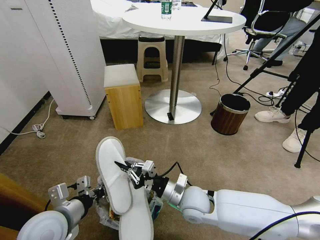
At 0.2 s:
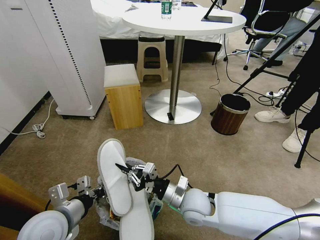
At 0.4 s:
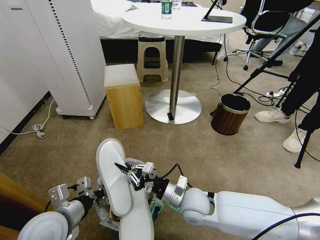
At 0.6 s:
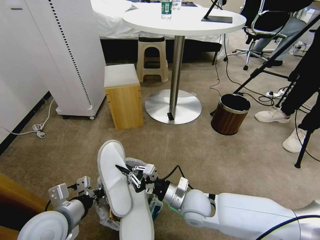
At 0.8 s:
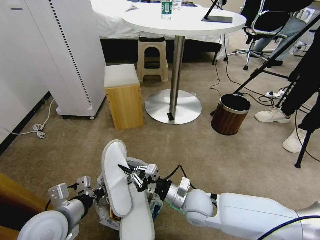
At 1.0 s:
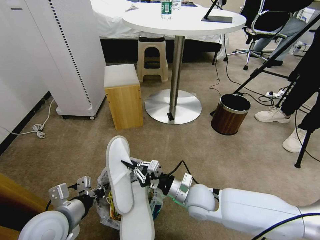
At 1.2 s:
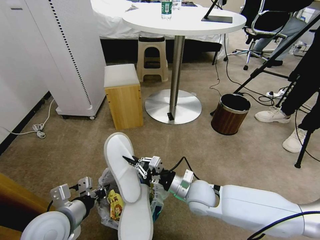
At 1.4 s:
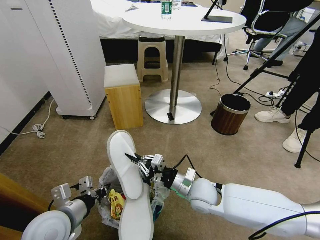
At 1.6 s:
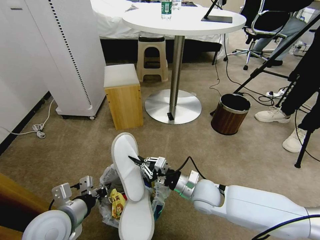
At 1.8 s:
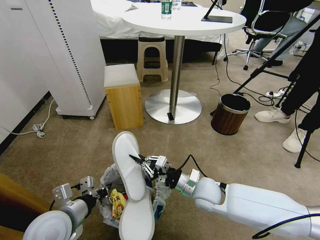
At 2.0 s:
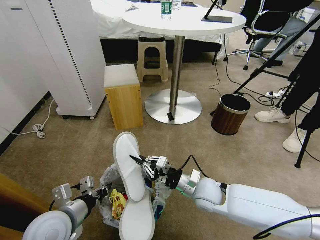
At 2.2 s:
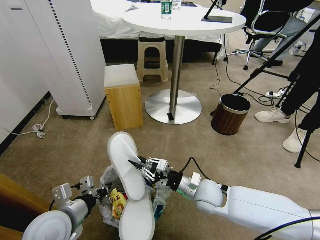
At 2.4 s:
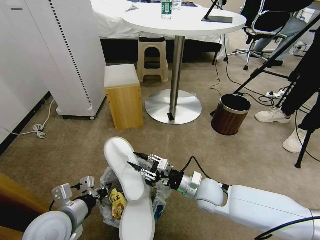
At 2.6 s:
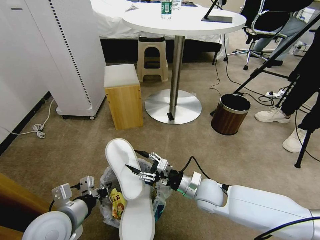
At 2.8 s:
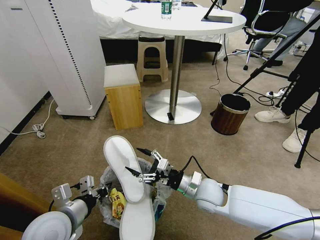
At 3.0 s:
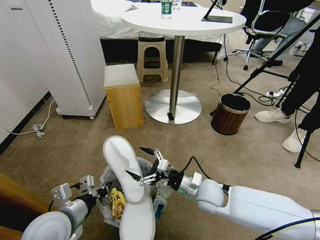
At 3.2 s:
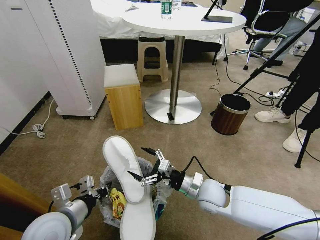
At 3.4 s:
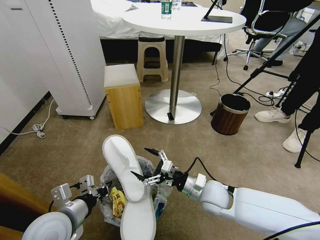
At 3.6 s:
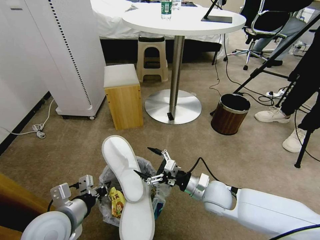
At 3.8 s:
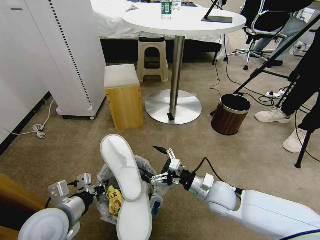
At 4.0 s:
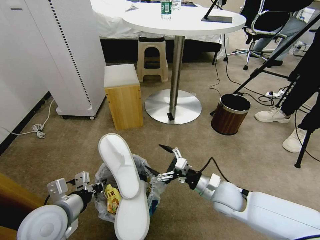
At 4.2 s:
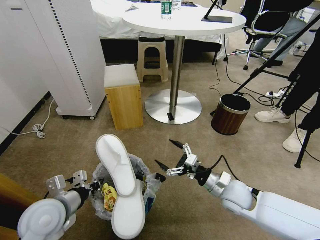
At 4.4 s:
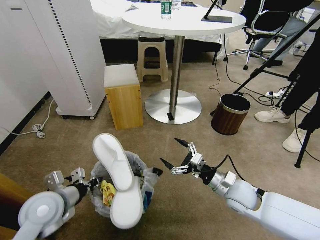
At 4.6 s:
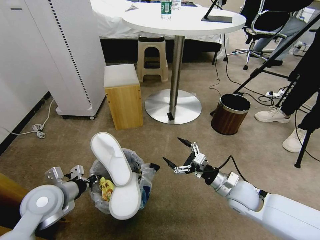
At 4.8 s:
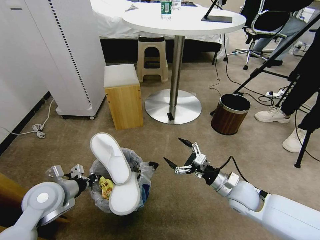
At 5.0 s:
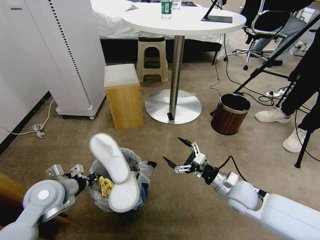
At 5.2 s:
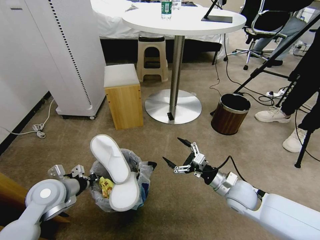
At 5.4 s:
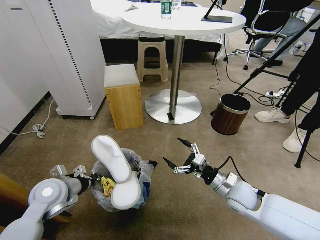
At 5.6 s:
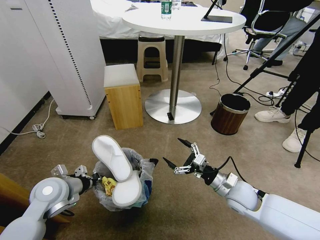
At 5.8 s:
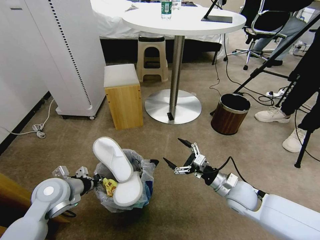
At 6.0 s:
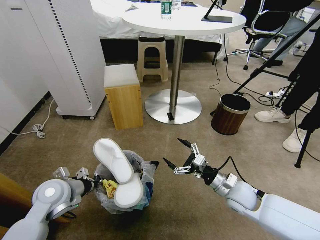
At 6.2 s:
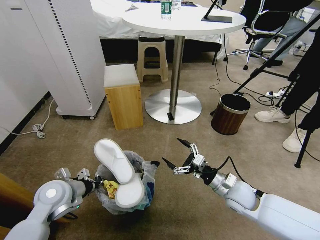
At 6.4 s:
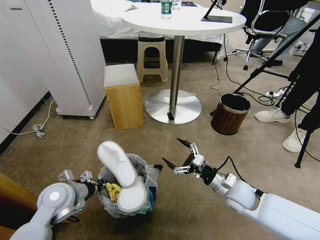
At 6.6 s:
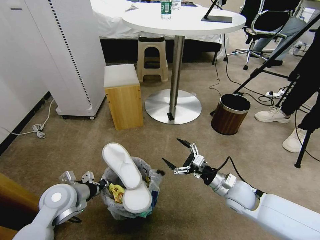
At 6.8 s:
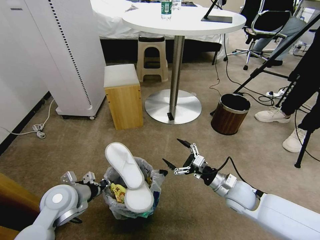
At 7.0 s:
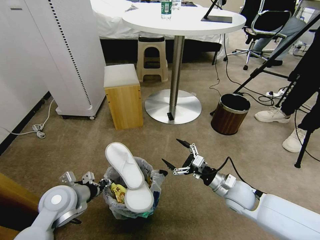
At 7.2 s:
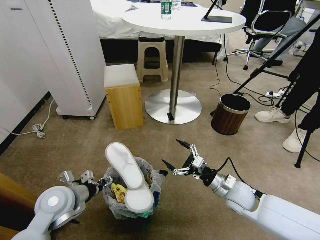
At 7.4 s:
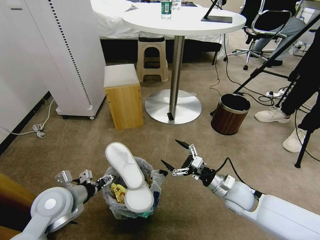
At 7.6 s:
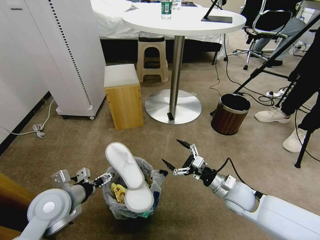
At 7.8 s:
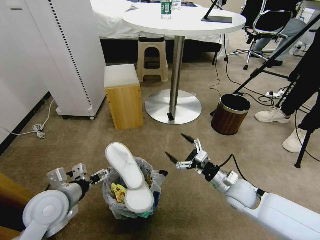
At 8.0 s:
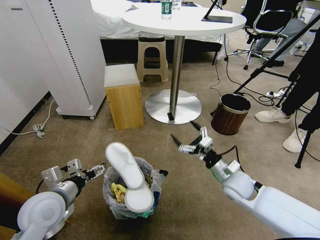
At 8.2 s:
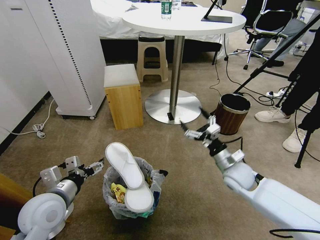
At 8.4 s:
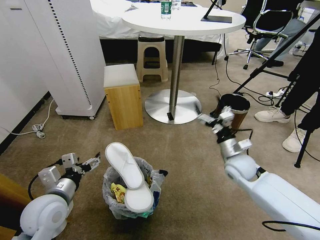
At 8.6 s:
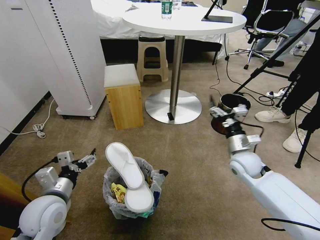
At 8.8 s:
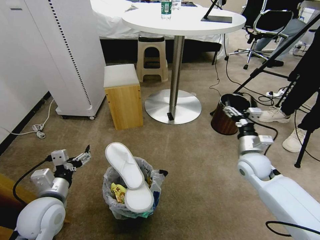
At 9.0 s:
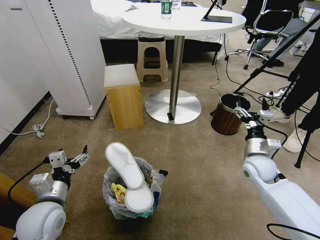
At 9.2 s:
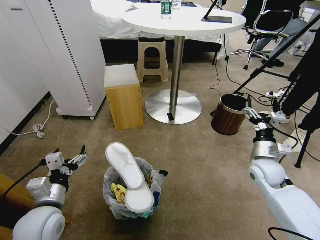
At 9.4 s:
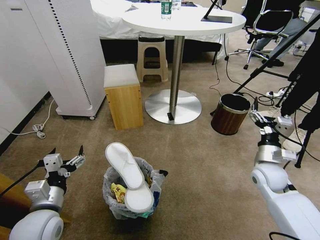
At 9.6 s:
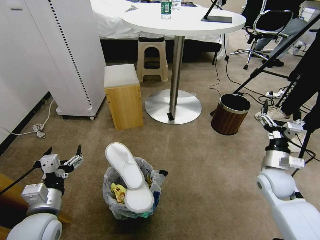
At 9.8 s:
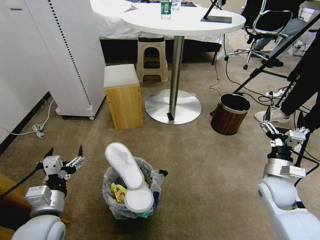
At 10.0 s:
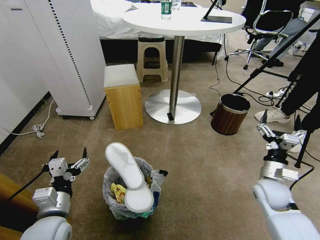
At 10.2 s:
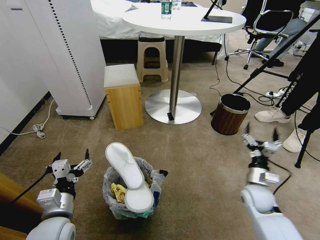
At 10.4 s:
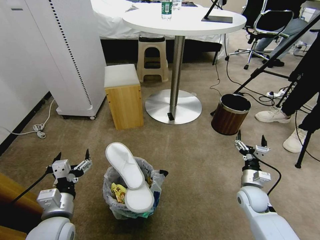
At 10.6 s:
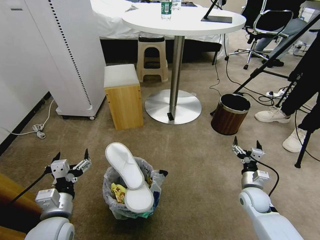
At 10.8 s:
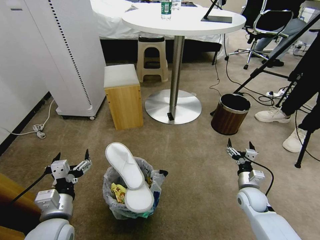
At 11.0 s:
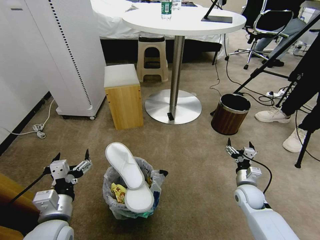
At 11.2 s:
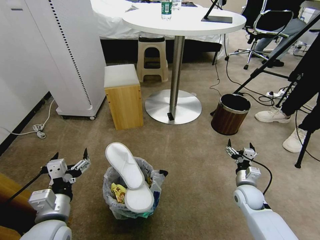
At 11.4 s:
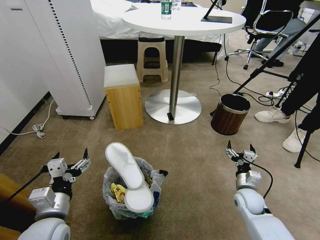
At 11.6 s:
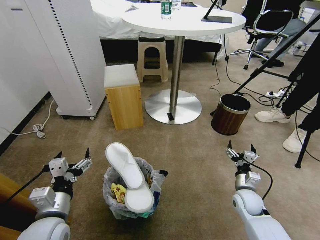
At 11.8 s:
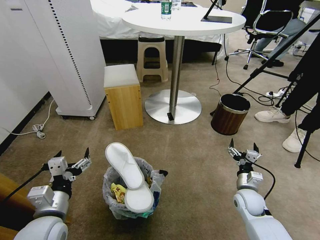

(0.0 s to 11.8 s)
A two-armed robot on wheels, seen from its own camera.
Task of the whole recording: Pick up the trash bin and place the garbage on the floor into it.
0.0 s - 1.4 s: The grippers stay close to where they were, moving slightly.
1.4 s - 3.0 s: The right gripper opens.
3.0 s - 4.4 s: The right gripper shifts approximately 10 cm to the right; the left gripper goes approximately 5 cm forward.
4.4 s - 6.0 s: The left gripper changes place by some 5 cm.
6.0 s - 7.4 s: The left gripper opens its fingers.
7.4 s - 8.8 s: The right gripper is displaced forward, upward and to the right by about 10 cm.
8.8 s - 10.4 s: The left gripper changes place by approximately 5 cm; the right gripper moves downward and backward, approximately 15 cm.
10.4 s - 11.8 s: The grippers move only a little.

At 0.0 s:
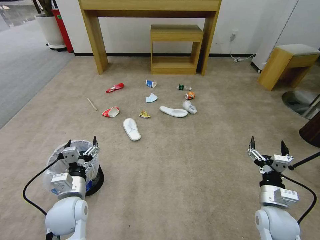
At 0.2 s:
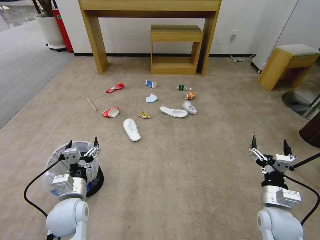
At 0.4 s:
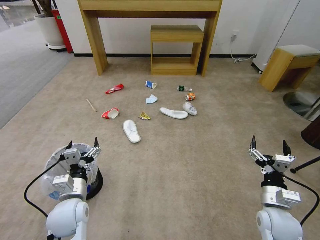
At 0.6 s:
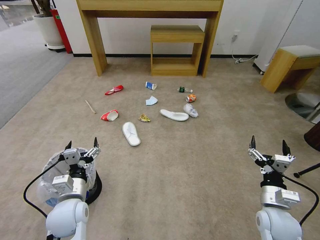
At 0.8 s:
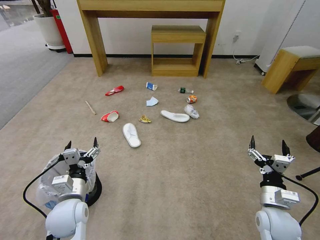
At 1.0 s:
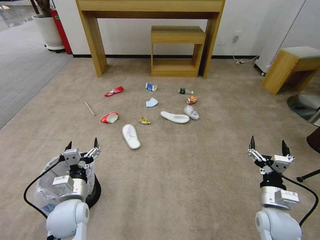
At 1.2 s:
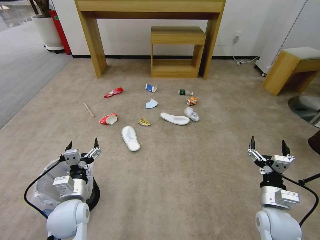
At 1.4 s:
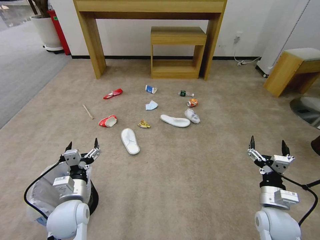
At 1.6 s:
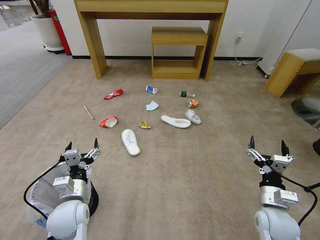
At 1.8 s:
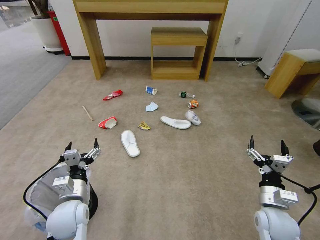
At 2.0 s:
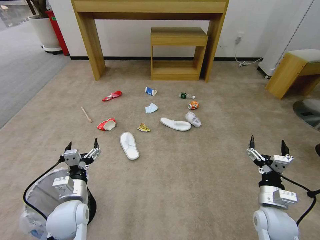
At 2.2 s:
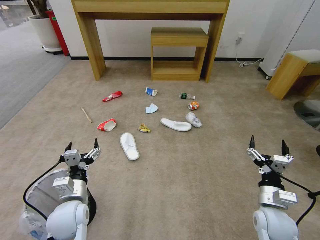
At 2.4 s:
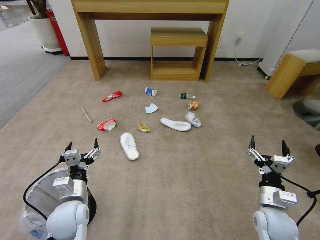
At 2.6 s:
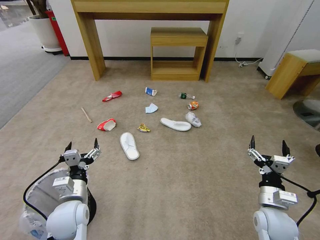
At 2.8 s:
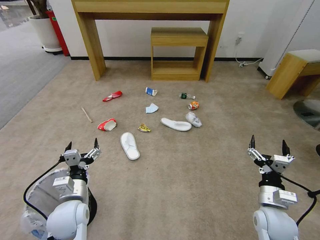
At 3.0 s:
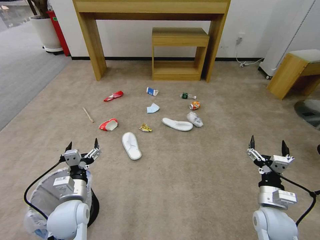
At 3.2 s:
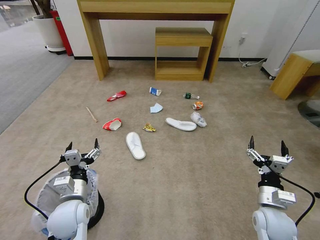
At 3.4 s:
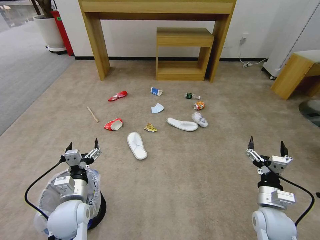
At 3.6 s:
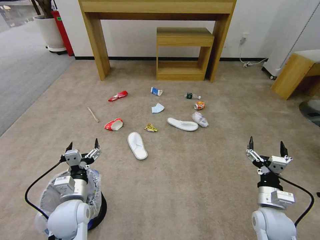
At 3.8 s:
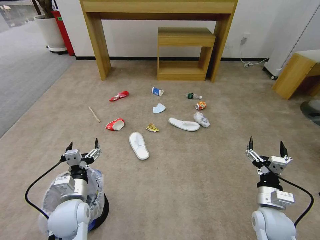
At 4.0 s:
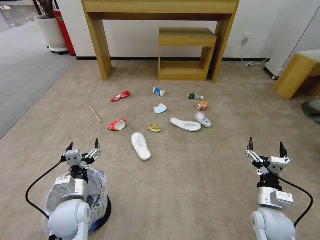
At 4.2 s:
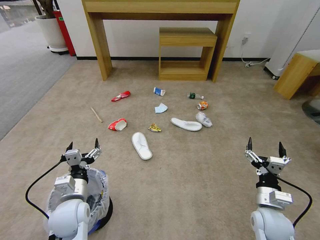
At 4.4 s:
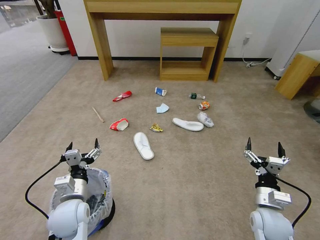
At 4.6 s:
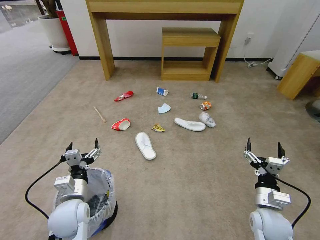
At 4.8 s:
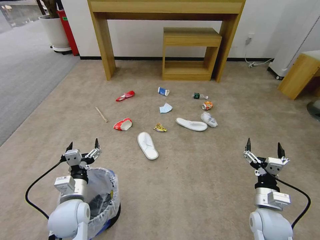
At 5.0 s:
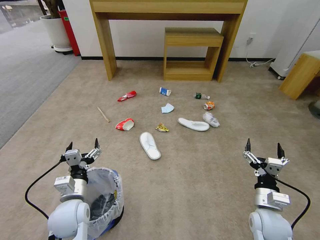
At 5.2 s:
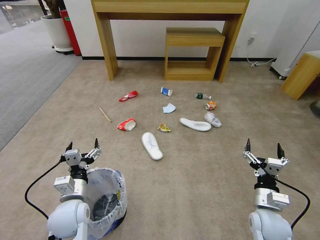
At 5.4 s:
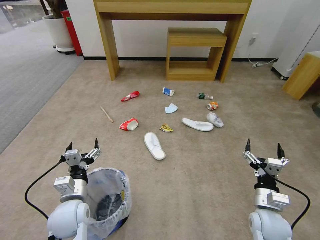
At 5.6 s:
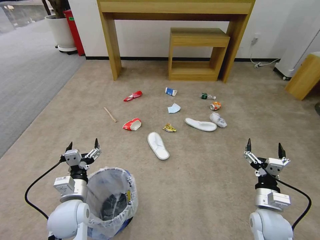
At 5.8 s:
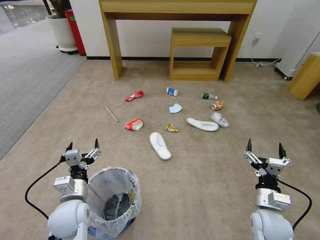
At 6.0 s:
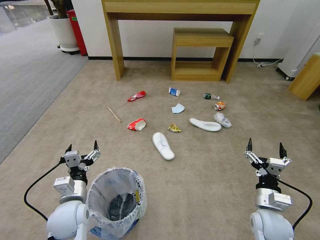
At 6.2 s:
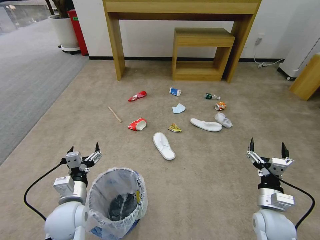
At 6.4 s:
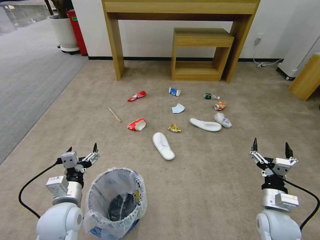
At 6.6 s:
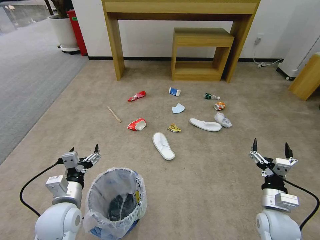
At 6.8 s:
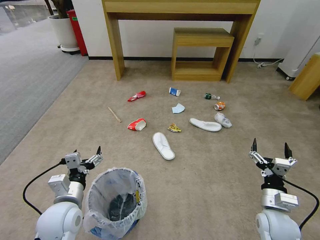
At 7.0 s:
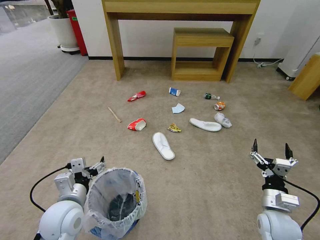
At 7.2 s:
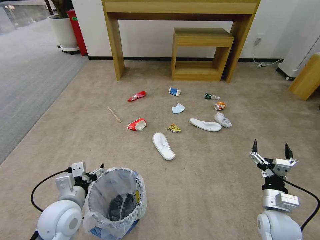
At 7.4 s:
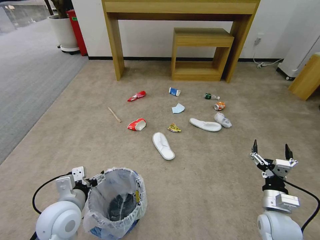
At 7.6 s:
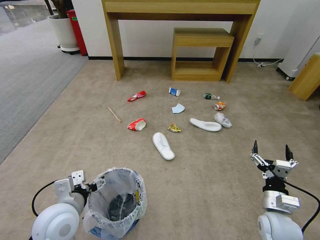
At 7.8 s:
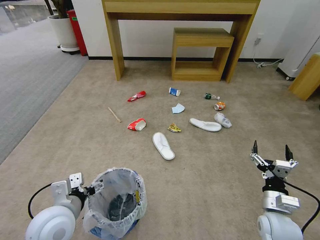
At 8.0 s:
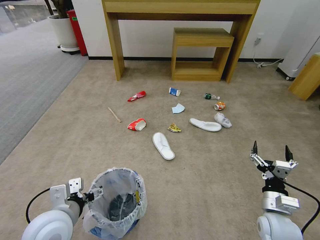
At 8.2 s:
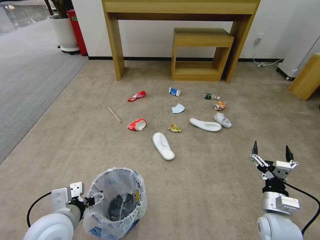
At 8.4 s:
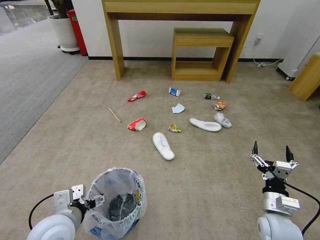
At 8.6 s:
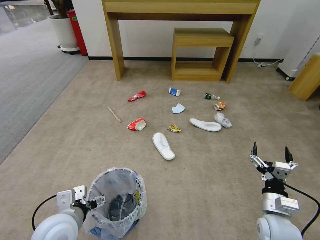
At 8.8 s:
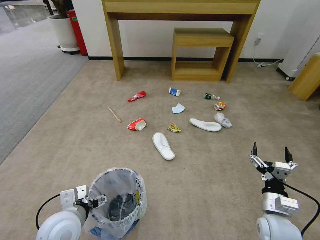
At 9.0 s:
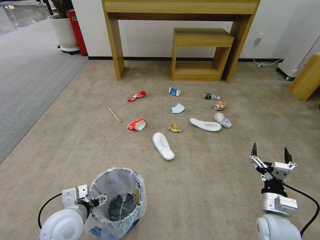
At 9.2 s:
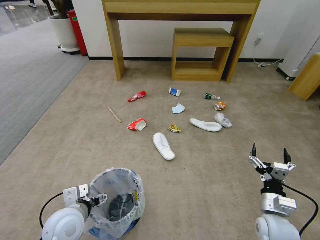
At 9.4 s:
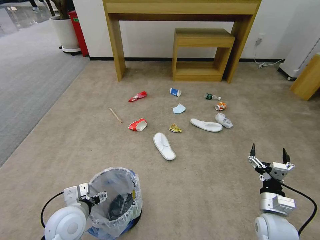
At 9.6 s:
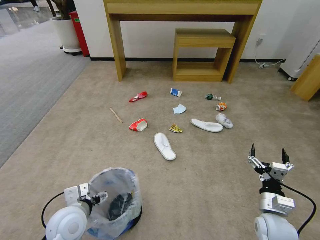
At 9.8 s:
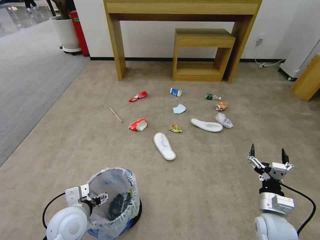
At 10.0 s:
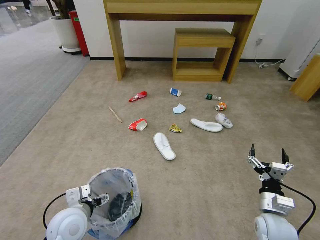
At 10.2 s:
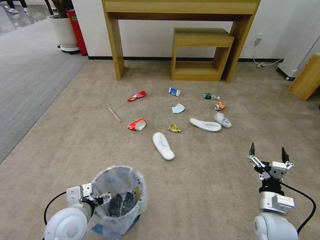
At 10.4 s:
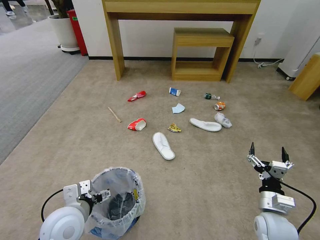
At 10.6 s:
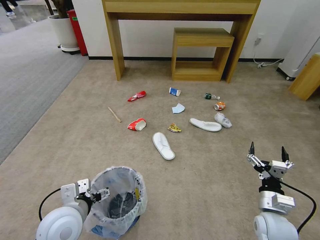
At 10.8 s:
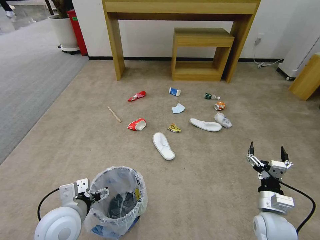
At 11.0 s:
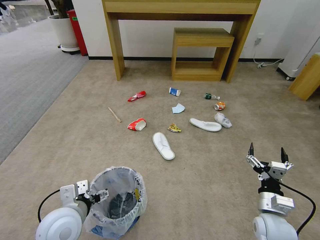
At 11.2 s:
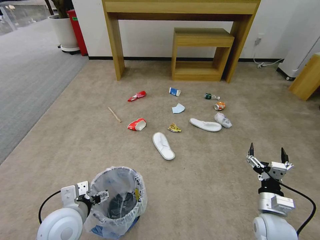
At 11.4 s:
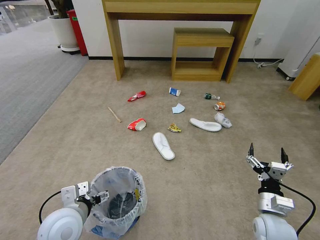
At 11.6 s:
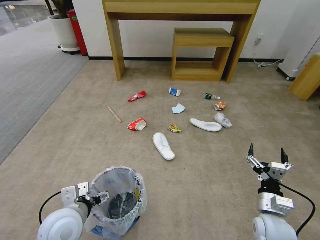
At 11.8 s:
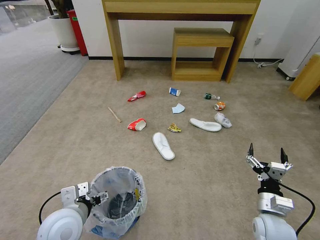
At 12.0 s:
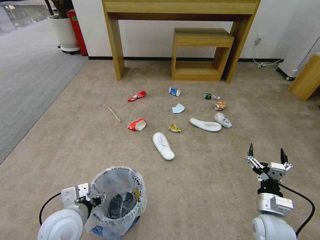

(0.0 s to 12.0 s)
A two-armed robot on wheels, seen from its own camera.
Task of the whole recording: Pick up the trash bin and place the garbage on the floor into it.
1.6 s - 3.0 s: Both grippers stay put.
3.0 s - 4.4 s: Both grippers stay about where they are.
6.0 s - 7.6 s: The left gripper moves upward, approximately 5 cm.
7.6 s - 10.4 s: There are only small adjustments of the grippers.
10.4 s - 12.0 s: The left gripper closes.
